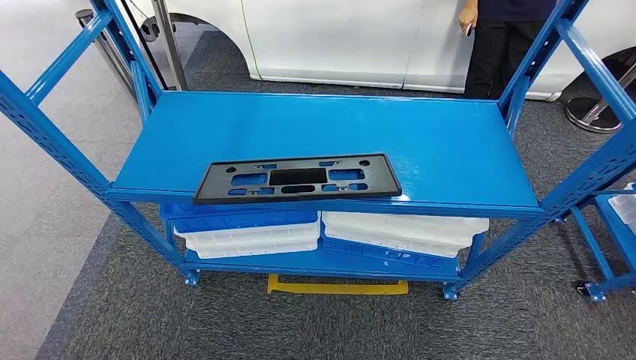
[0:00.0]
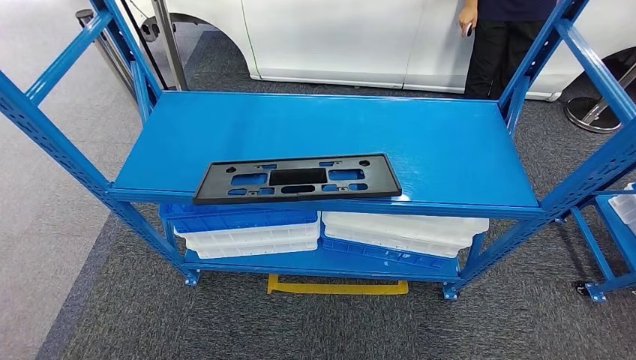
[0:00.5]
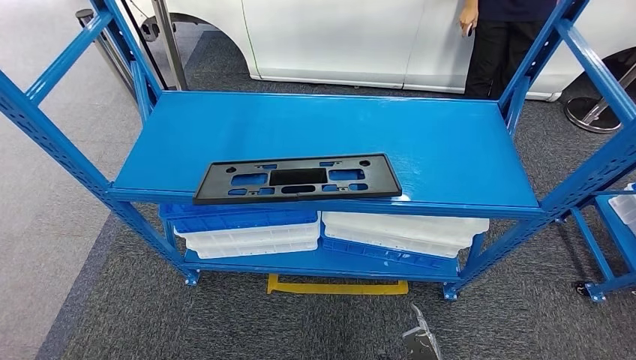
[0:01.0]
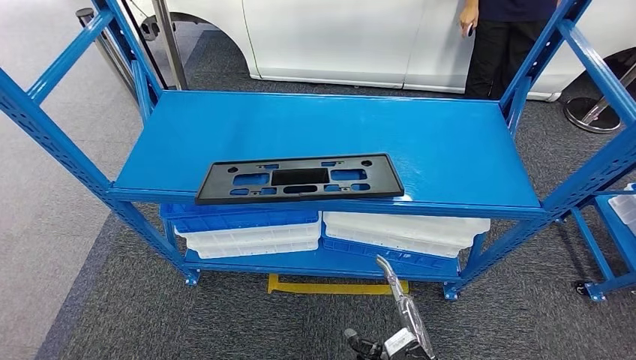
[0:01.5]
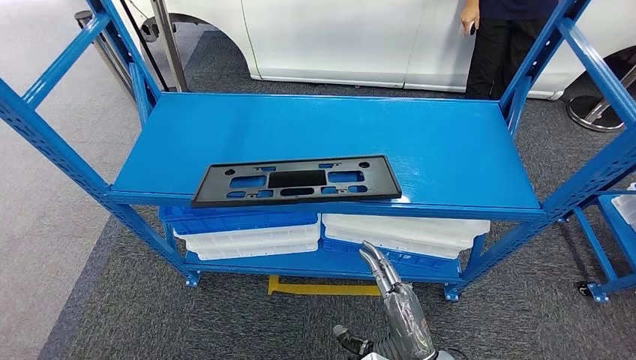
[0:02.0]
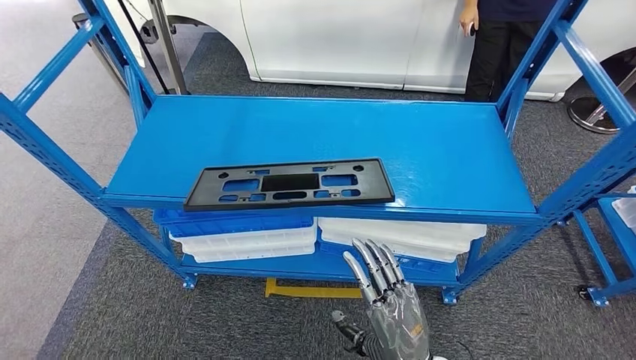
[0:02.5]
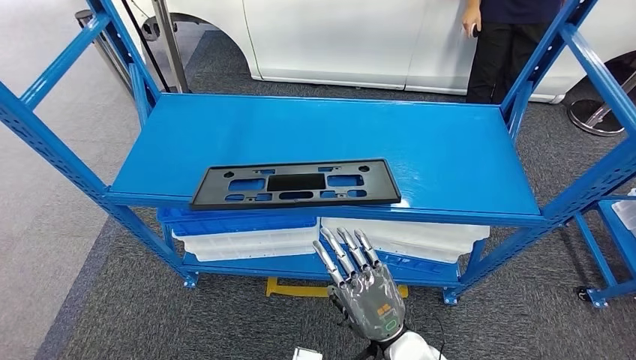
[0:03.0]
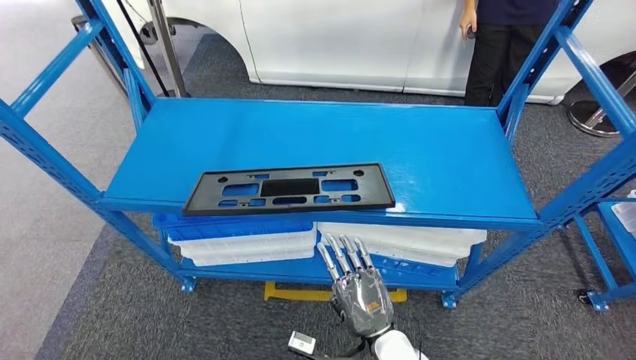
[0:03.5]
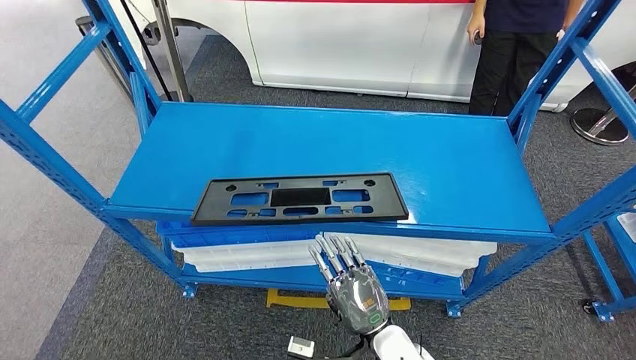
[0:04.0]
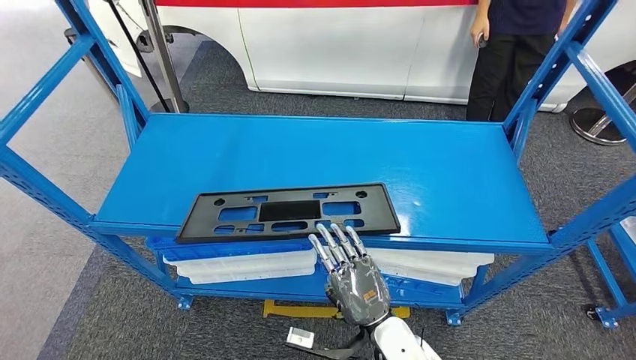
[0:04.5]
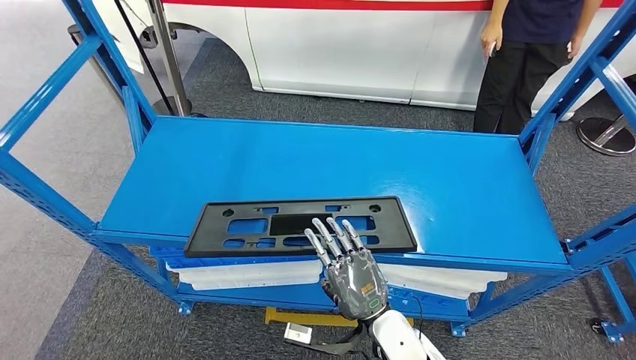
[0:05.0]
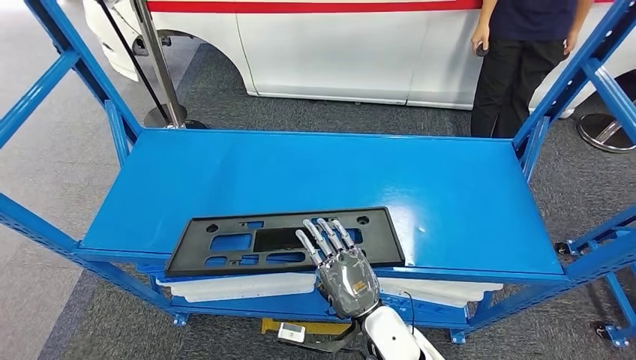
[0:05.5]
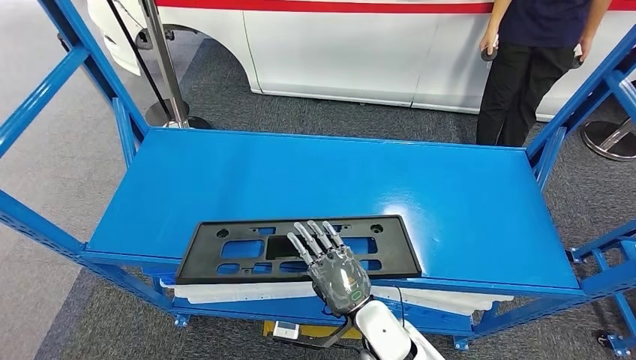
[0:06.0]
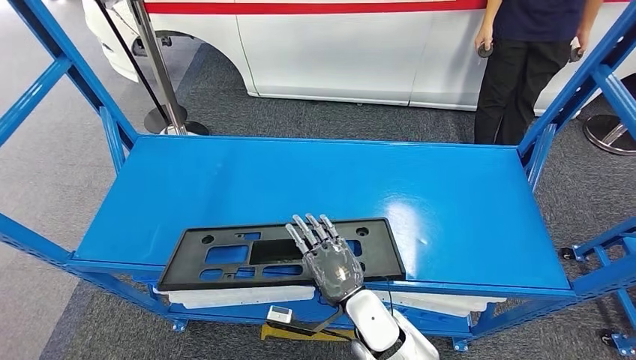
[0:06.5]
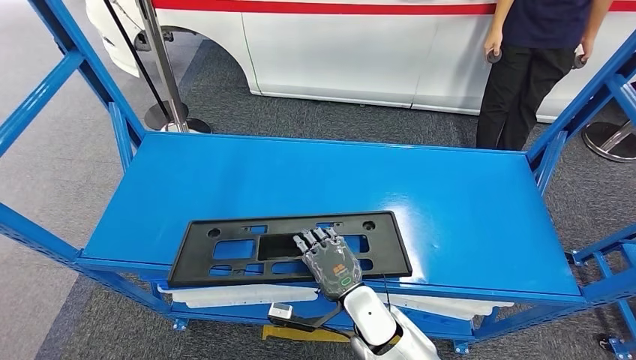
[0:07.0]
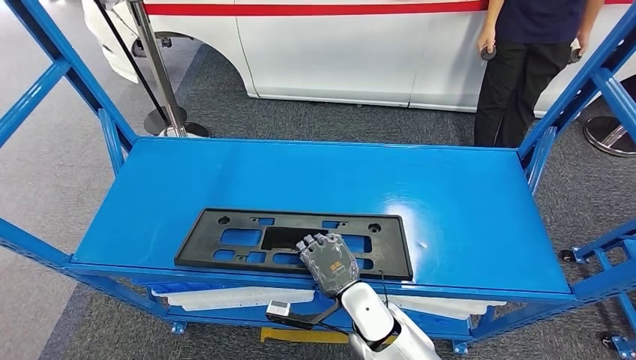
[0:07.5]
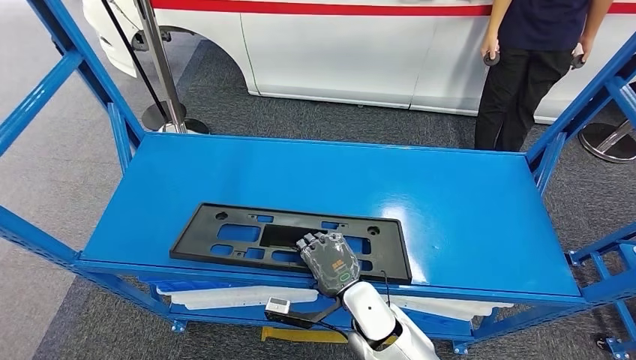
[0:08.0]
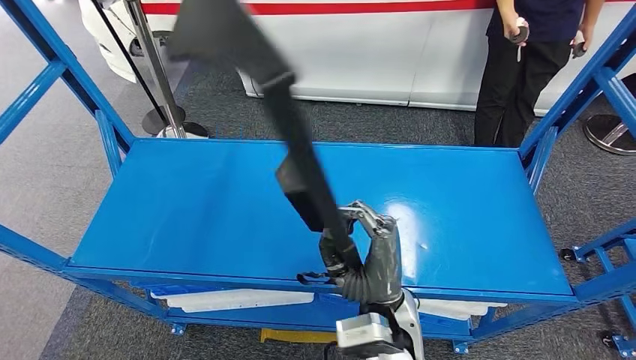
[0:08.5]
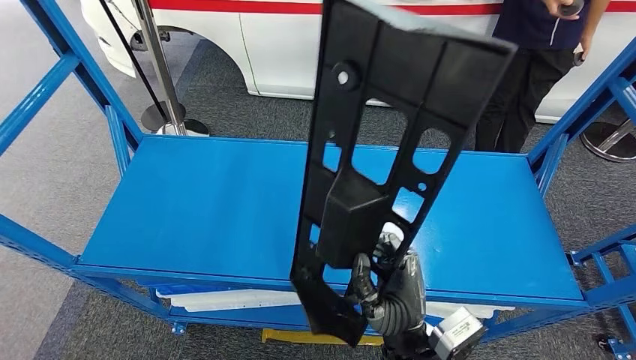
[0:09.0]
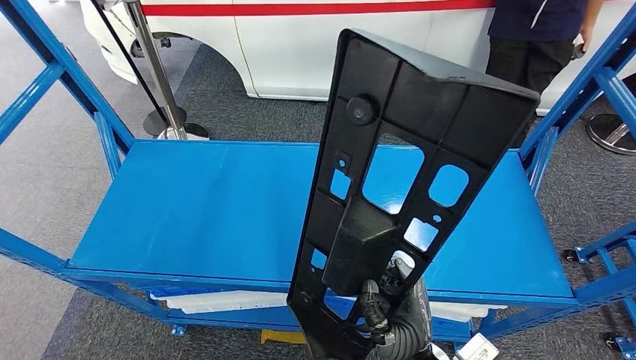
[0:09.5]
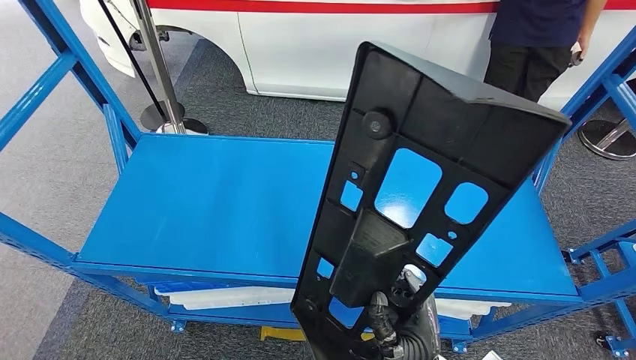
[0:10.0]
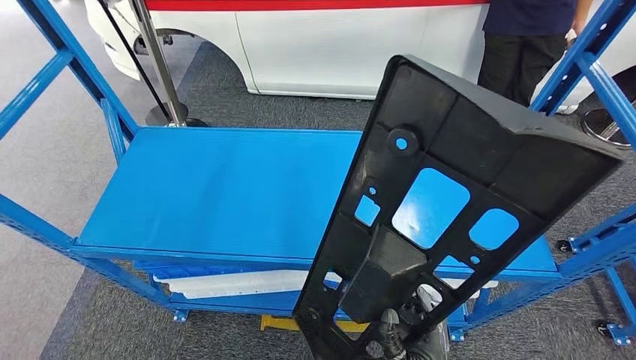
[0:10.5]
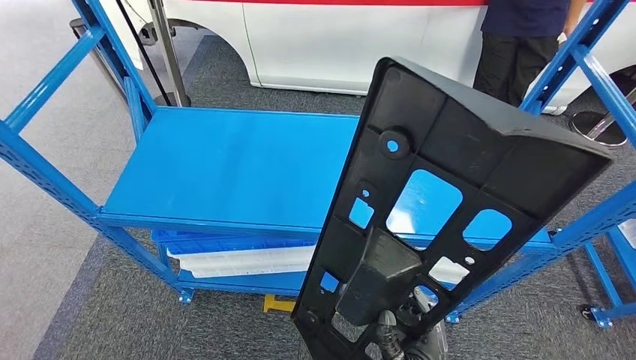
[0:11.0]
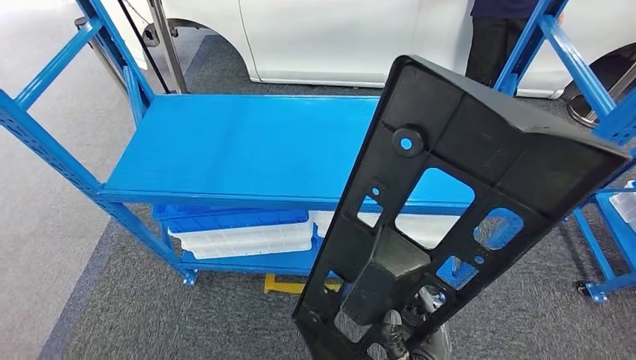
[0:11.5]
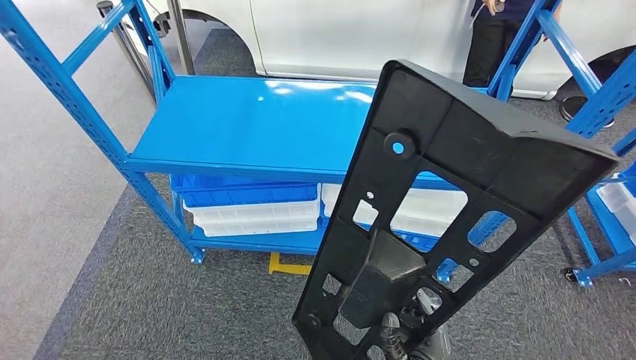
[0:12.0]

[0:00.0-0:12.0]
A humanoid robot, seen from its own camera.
Step, 0:00.0 to 0:10.0: Pick up the large parts from the shelf.

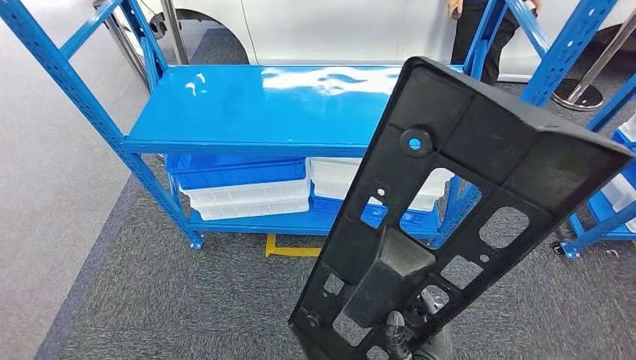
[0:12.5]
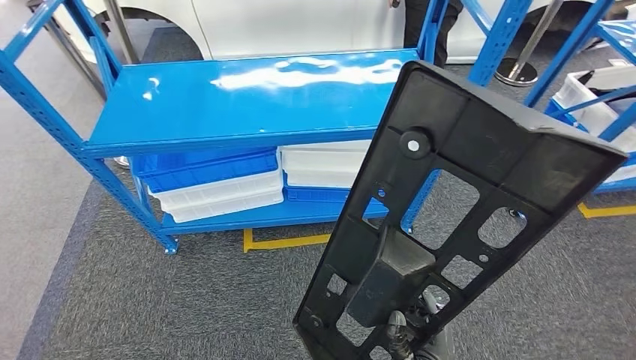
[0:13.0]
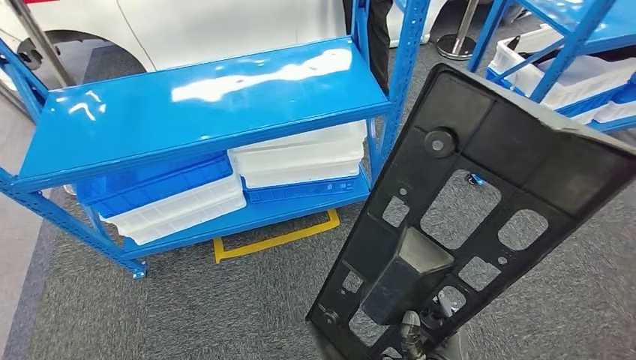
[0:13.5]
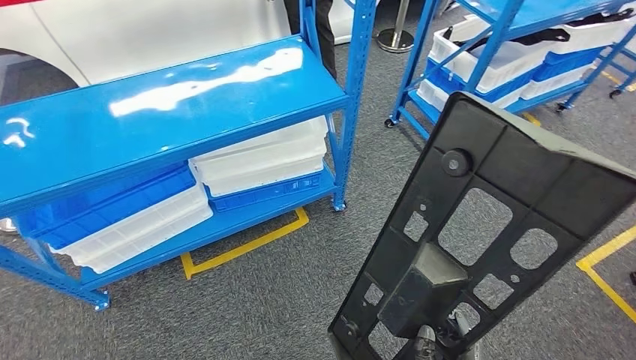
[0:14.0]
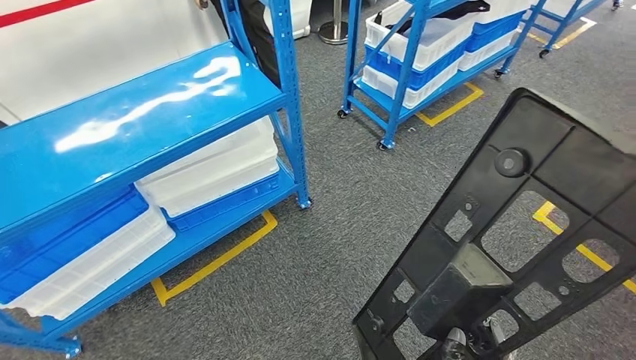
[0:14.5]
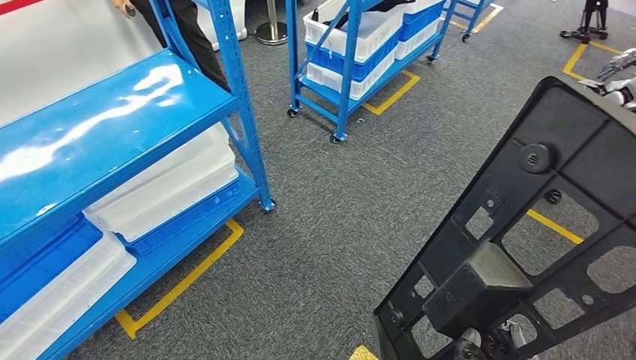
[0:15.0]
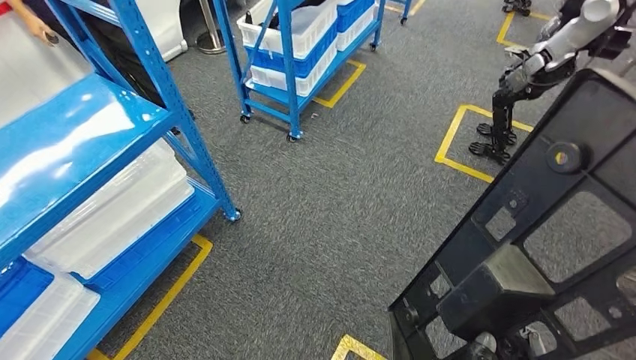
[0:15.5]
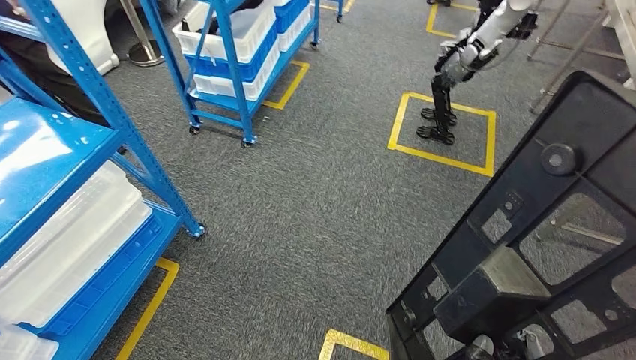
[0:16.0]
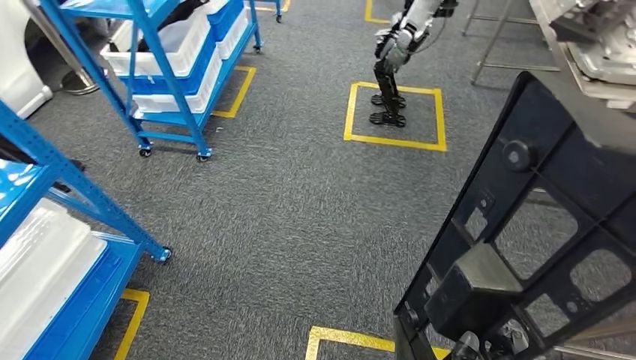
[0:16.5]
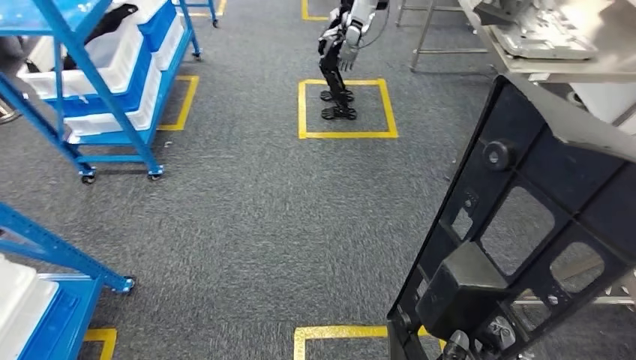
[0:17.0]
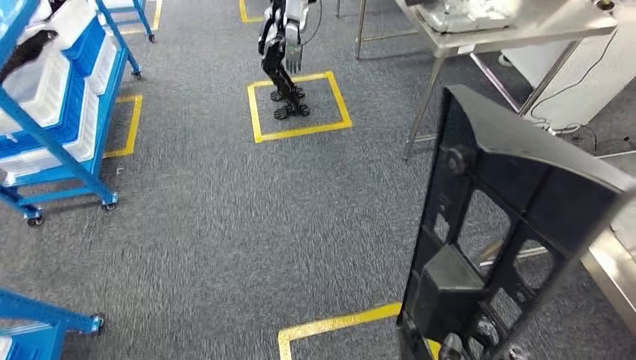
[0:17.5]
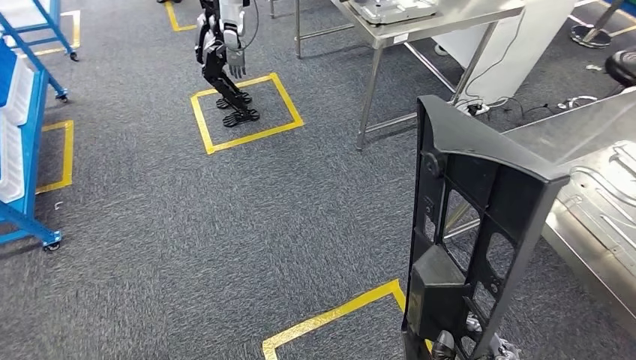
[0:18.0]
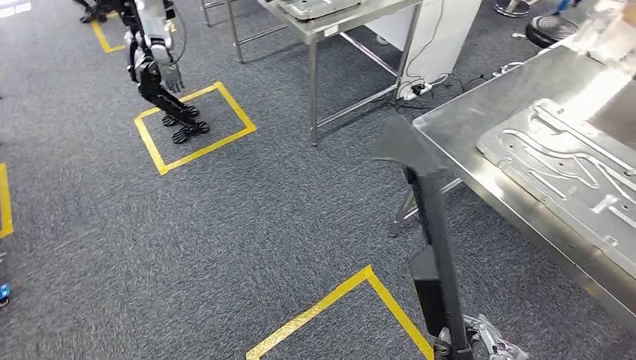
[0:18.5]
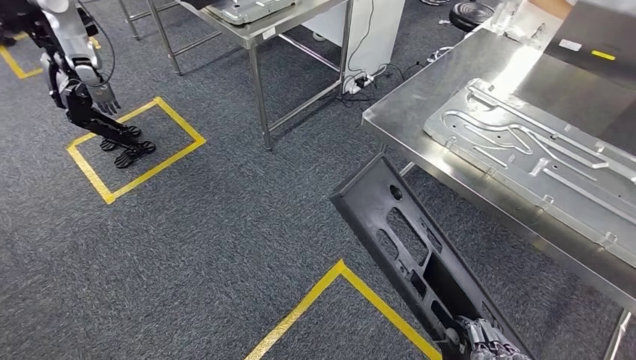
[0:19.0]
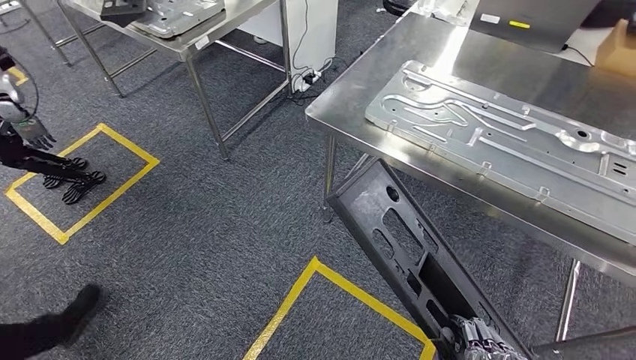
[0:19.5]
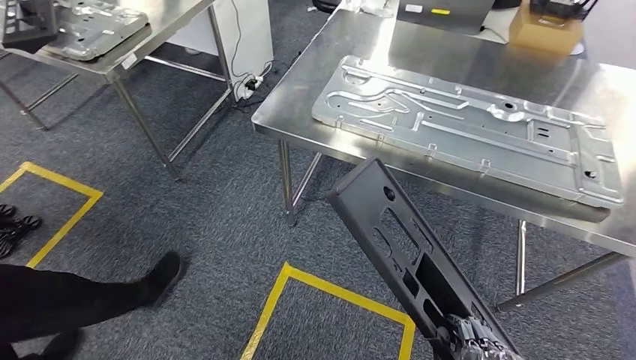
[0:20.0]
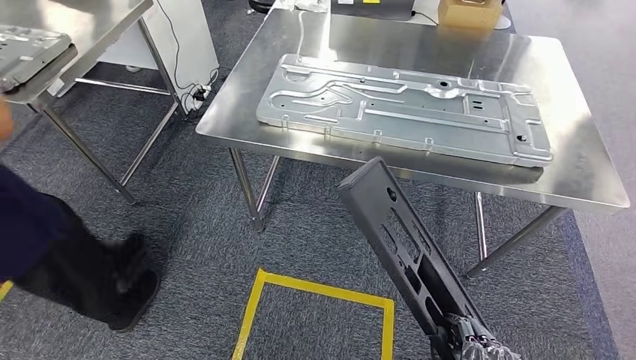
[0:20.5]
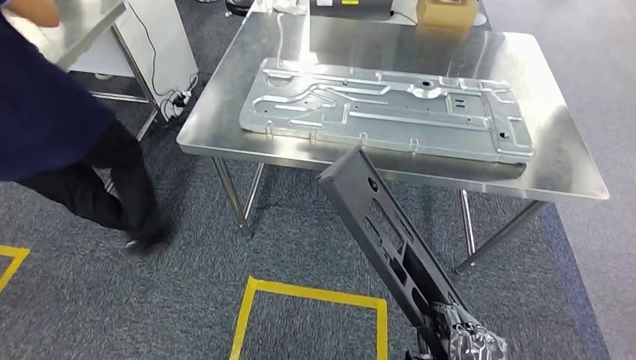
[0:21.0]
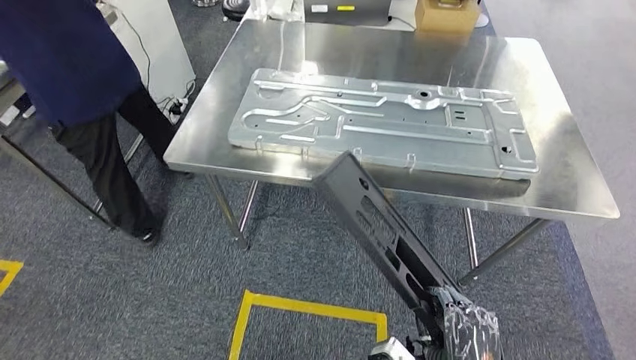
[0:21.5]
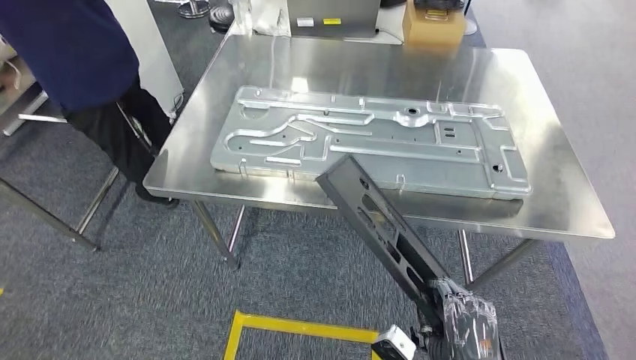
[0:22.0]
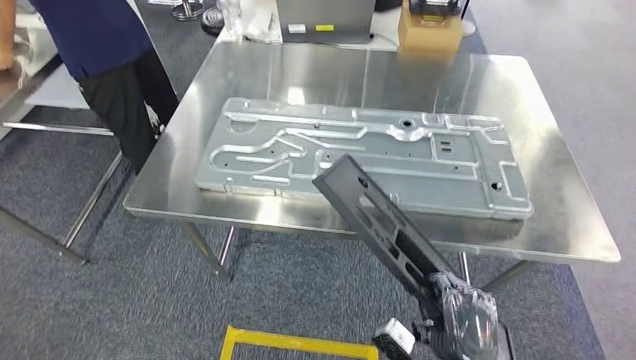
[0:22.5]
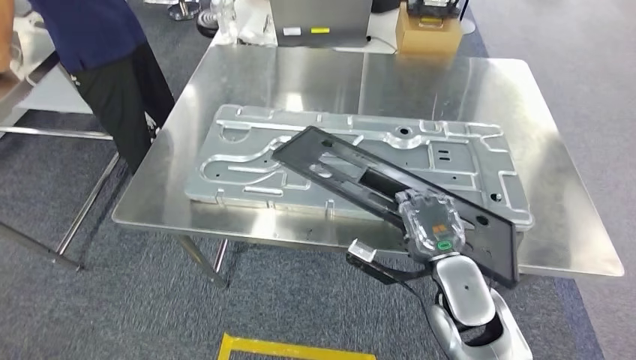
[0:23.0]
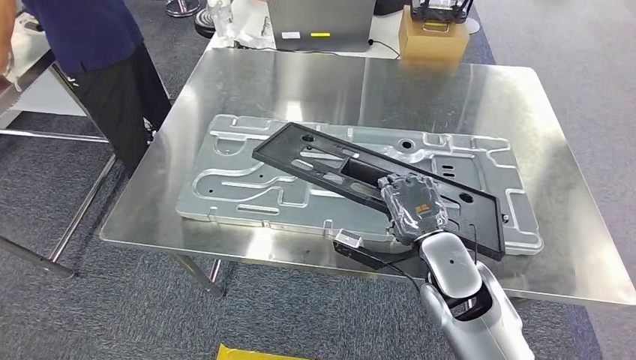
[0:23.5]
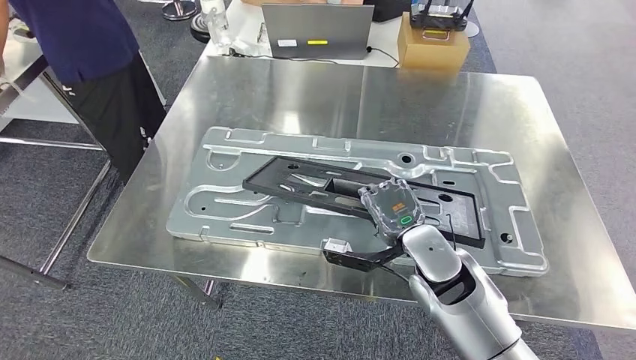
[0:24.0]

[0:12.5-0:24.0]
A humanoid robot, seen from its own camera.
Step, 0:12.5 to 0:22.5: Move the large parts to the workbench.
